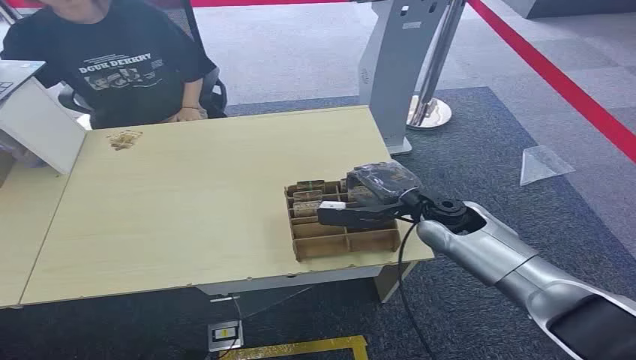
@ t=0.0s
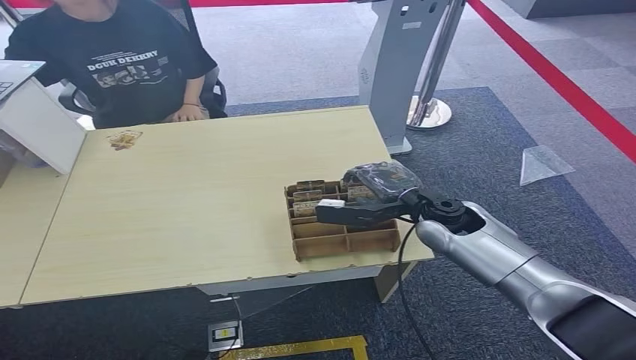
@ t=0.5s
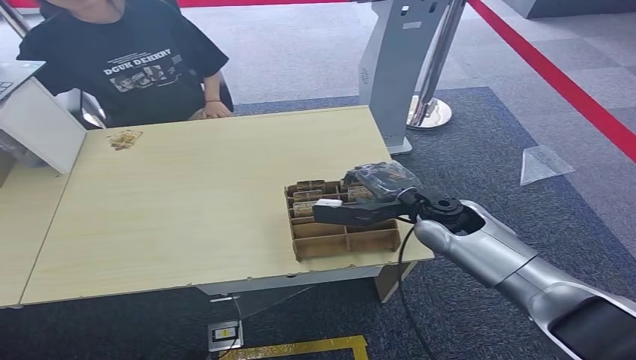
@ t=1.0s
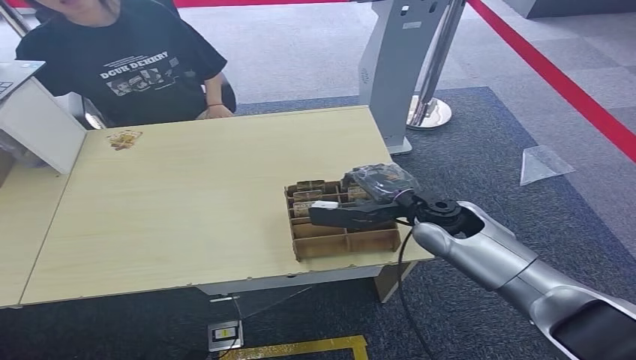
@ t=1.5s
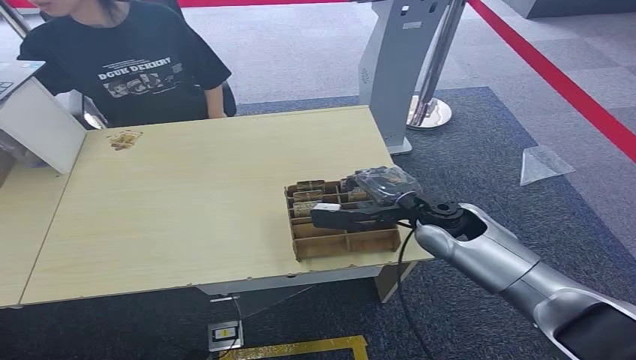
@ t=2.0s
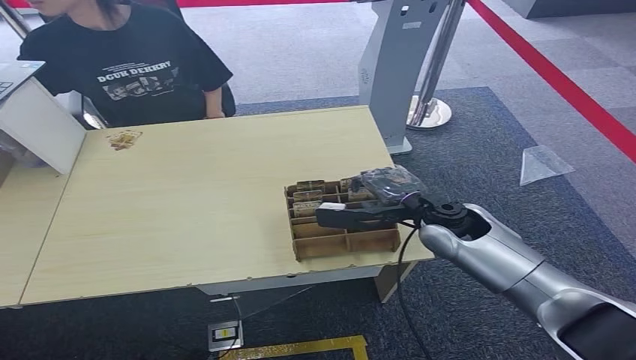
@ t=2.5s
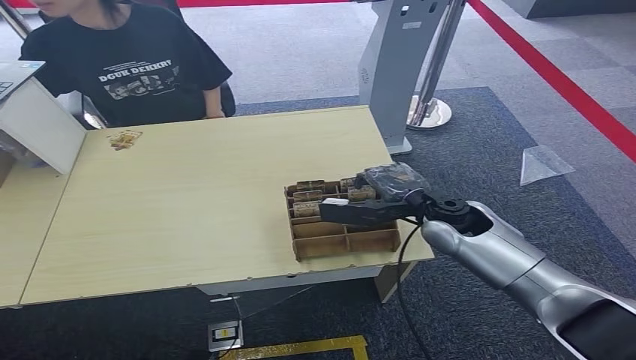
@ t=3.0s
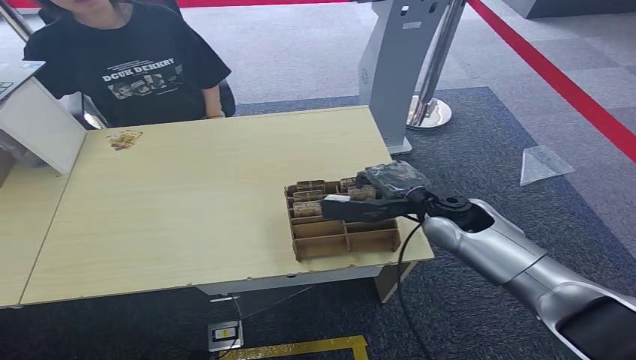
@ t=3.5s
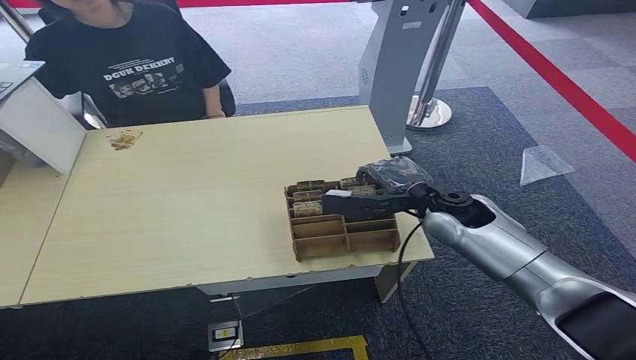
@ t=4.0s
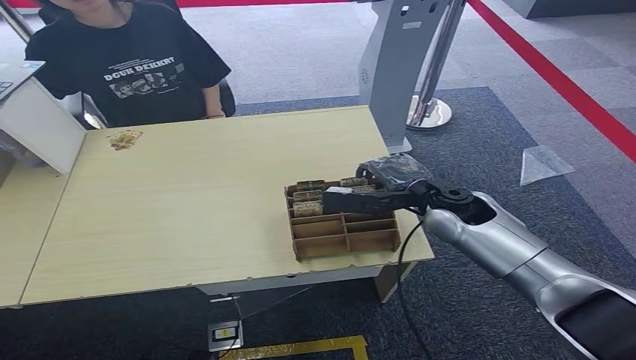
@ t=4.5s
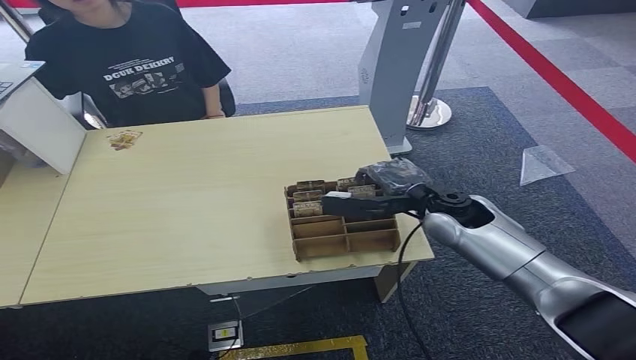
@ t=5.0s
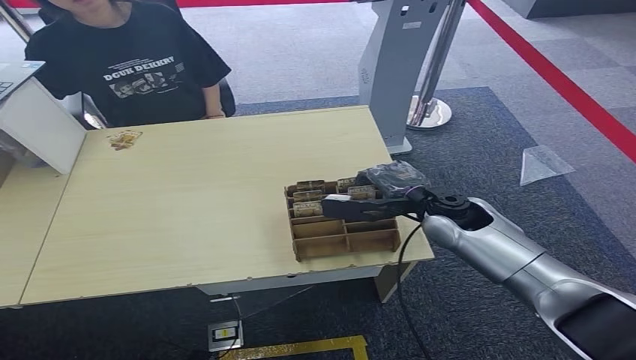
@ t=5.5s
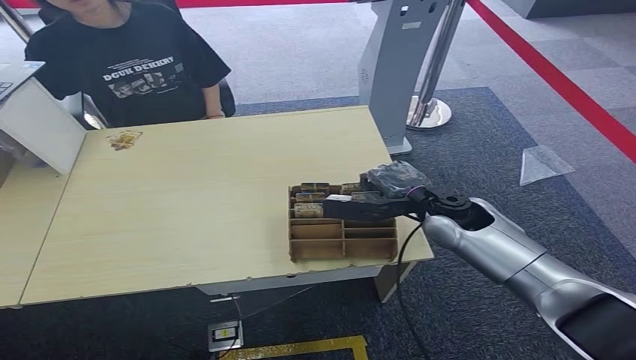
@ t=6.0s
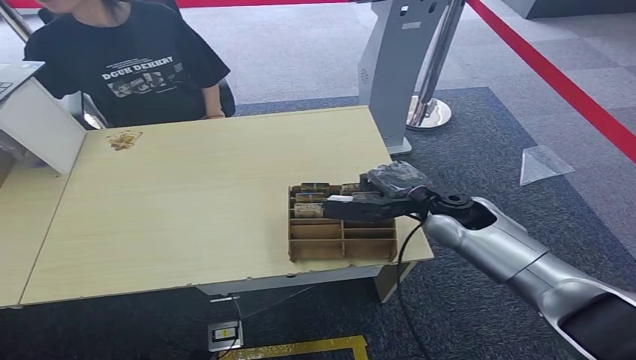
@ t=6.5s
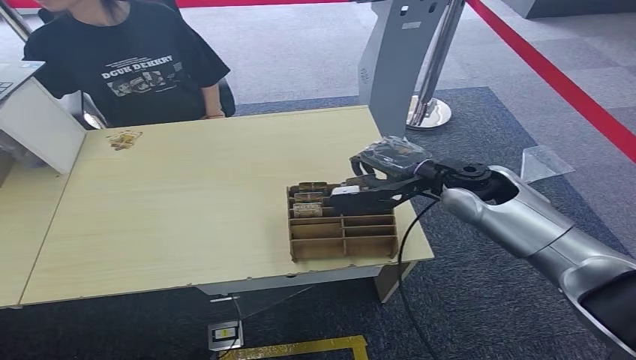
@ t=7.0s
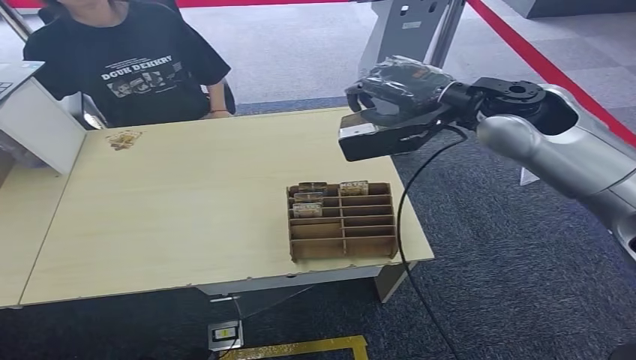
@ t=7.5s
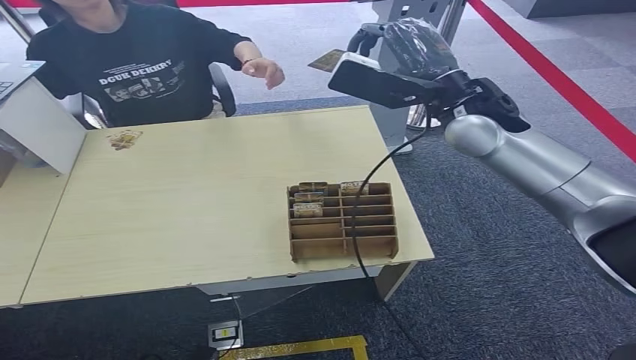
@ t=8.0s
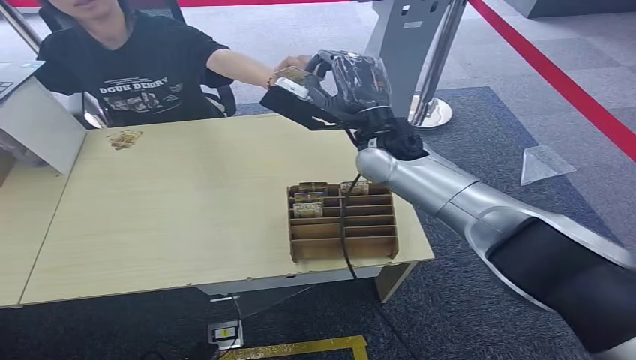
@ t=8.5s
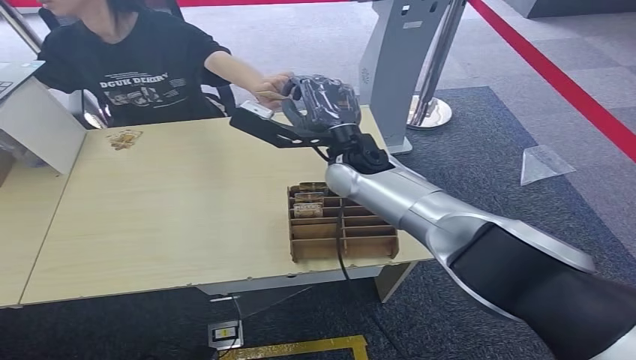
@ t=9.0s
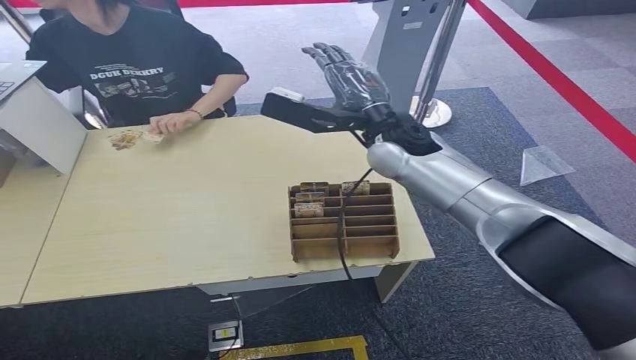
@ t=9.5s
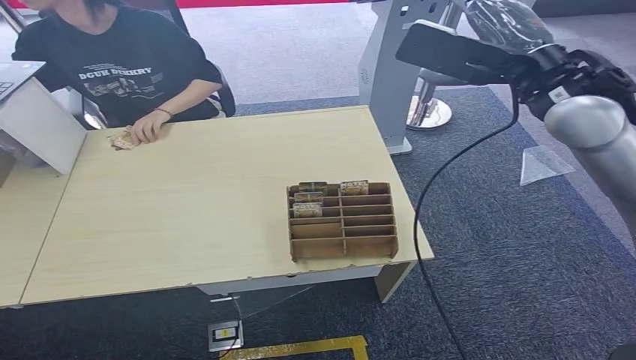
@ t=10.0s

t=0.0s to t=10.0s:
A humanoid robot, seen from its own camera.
Step, t=0.0s to t=7.5s: Pick up the key card from the card box.
Step, t=8.0s to t=10.0s: Hand the key card to the target.
t=2.0s to t=4.0s: The hands stay close to where they were, moving slightly.
t=4.0s to t=6.0s: Both hands stay about where they are.
